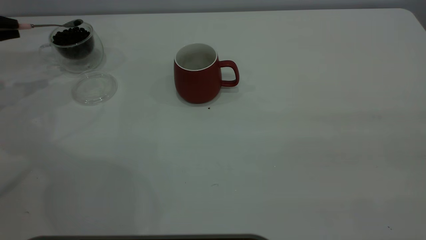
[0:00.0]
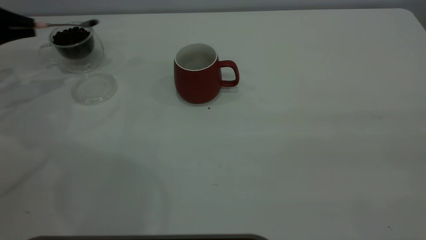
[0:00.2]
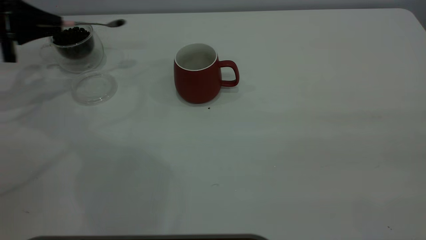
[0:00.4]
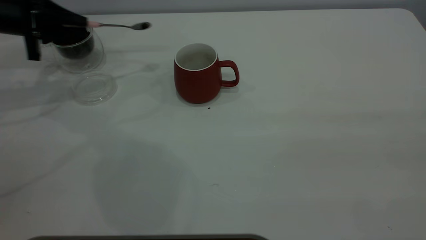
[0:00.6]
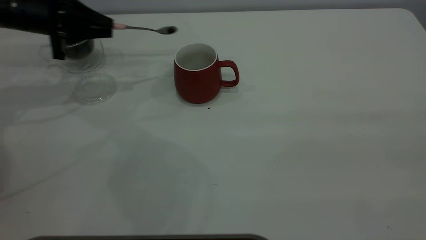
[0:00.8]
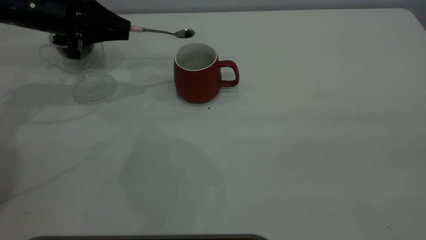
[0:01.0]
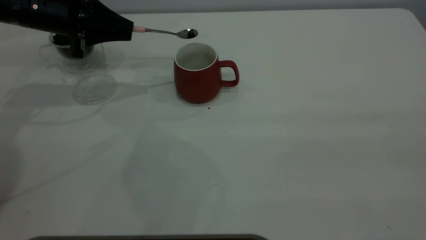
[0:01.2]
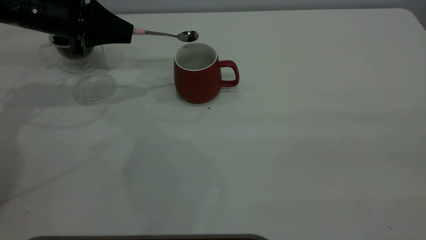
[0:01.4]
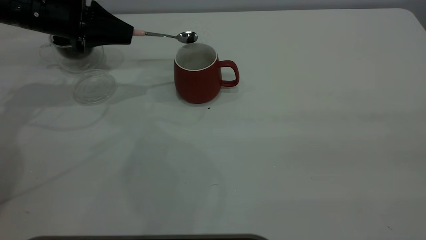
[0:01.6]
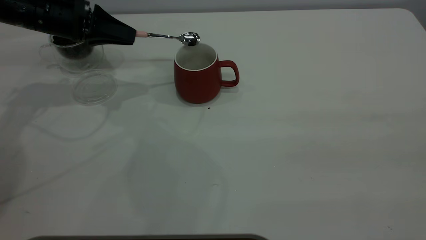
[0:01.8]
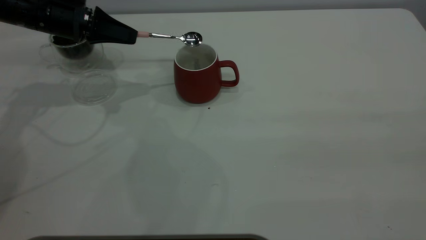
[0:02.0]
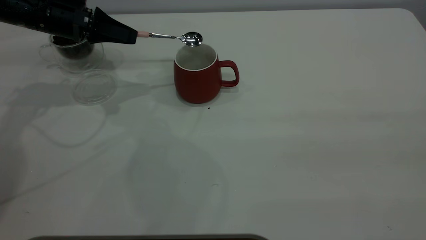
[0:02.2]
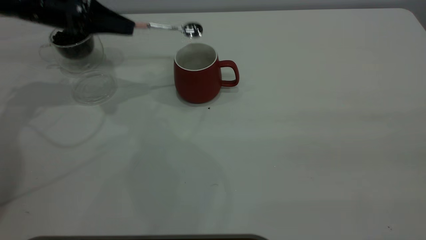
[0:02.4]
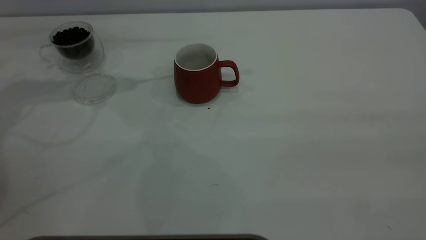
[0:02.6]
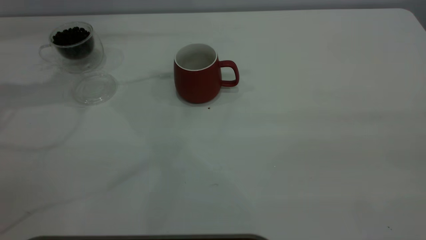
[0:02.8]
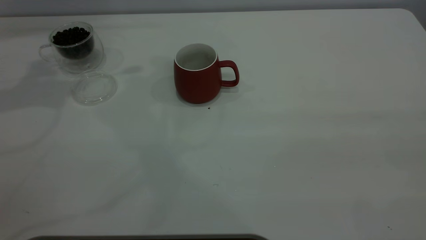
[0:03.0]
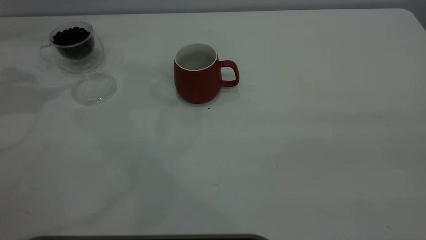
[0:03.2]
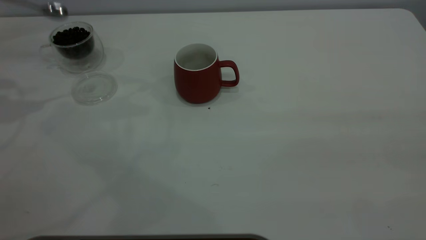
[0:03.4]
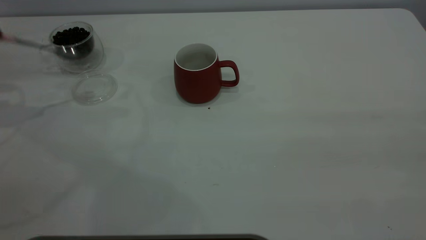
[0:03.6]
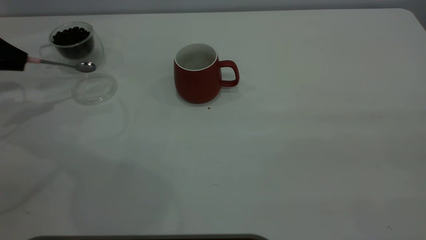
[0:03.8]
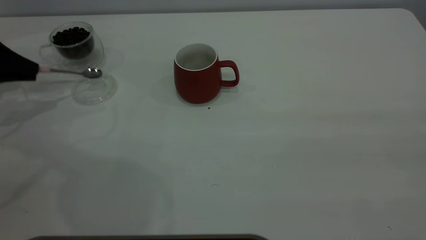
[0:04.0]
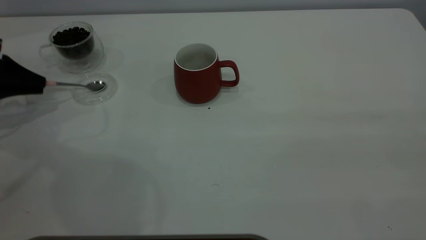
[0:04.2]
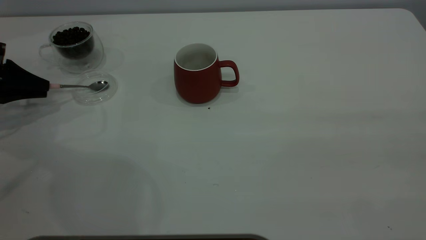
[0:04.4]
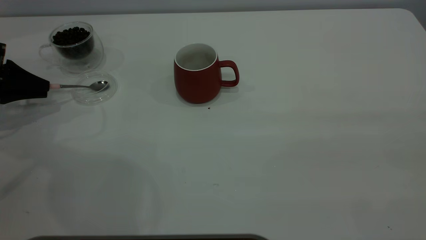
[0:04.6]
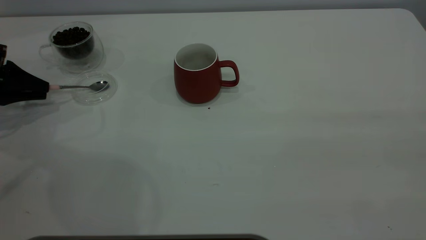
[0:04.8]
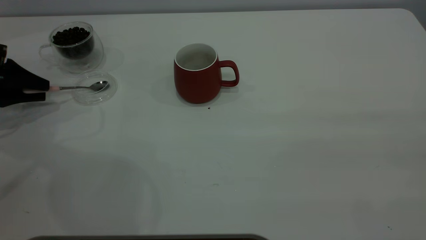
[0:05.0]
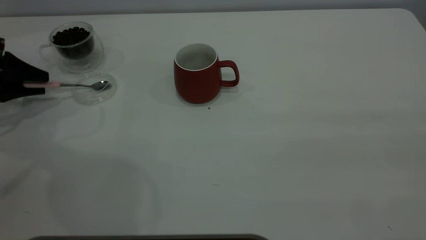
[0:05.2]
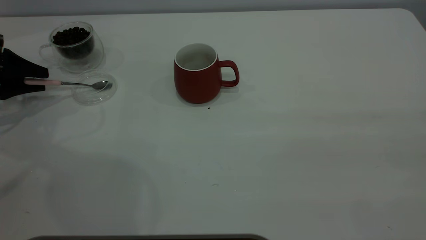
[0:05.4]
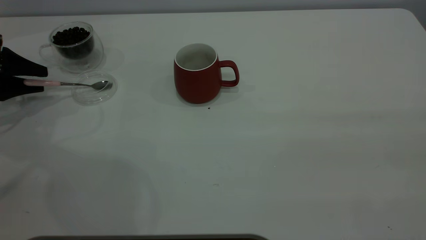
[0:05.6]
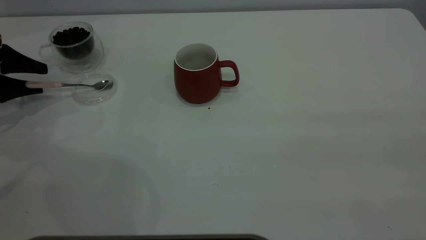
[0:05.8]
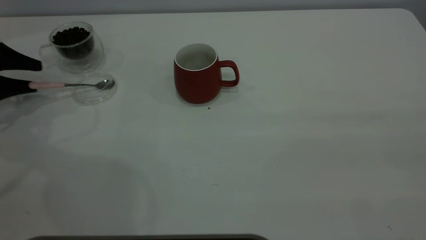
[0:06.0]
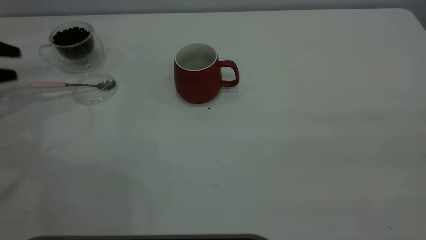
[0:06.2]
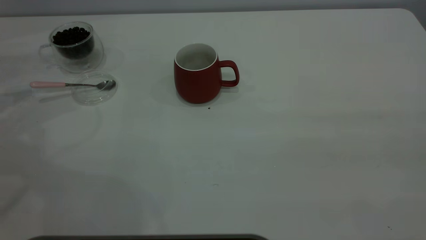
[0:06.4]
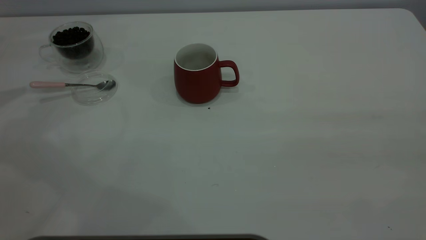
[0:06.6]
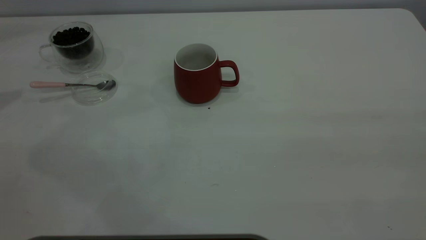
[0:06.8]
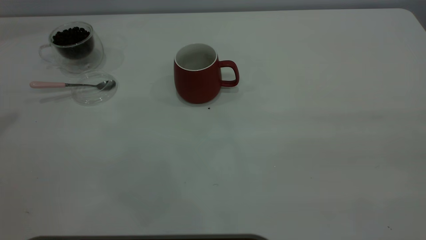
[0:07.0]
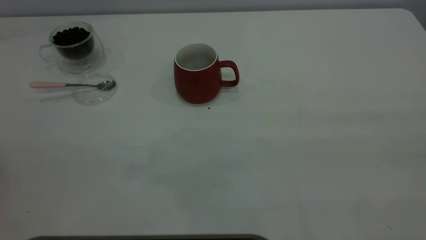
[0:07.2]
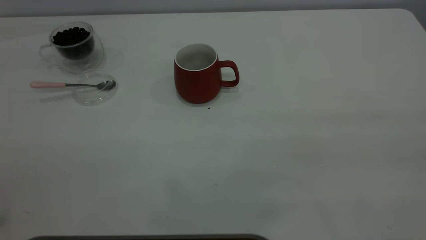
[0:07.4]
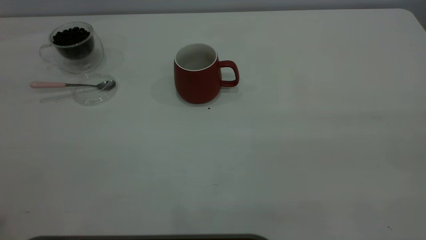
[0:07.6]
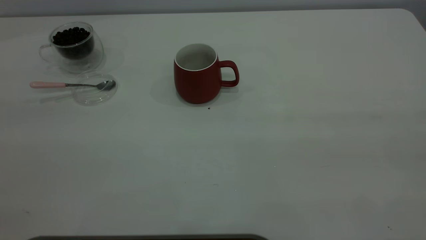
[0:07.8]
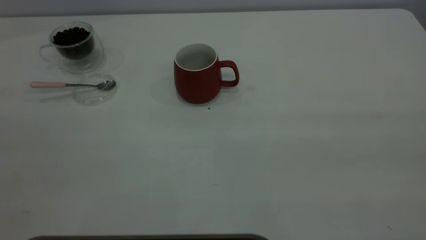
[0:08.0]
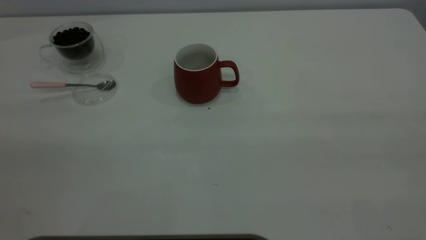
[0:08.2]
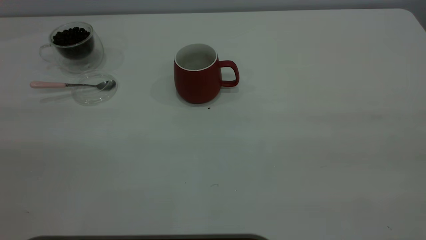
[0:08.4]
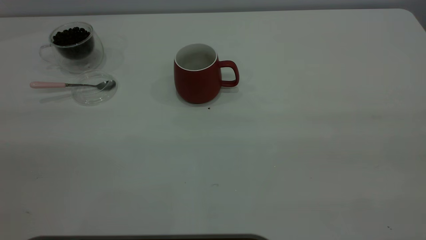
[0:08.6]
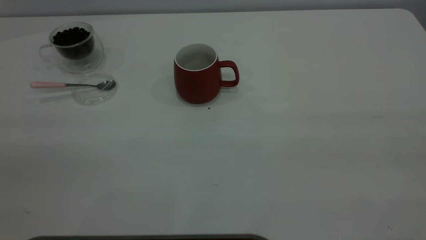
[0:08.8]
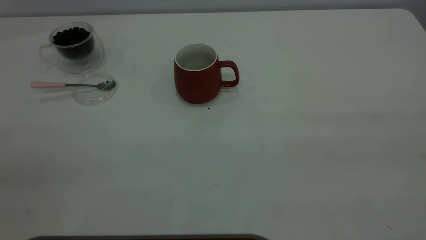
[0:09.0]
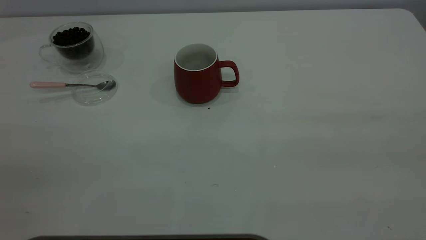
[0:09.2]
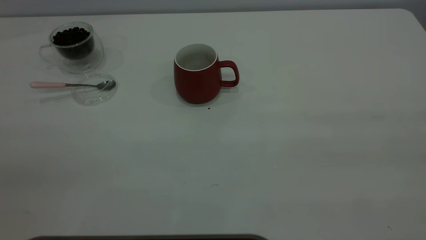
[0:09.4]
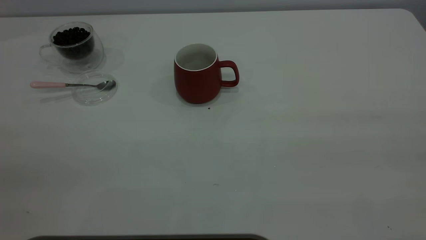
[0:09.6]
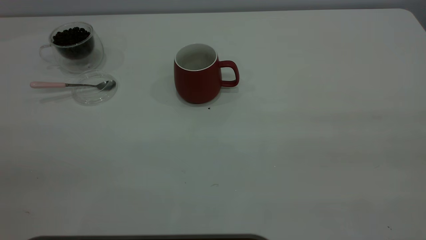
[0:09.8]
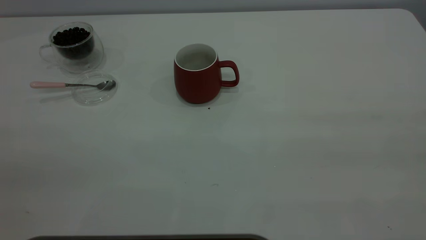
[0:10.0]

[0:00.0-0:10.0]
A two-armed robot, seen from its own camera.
Task of the whole recording: the right gripper place the red cup in the center of the table, the left gripper take the pink spoon from the cup lid and scoop out the coffee beans from the coffee cup and put them into the red cup, the left gripper put the spoon back into the cup lid.
Step, 0:00.0 to 0:02.2: Scoop a spoonful of beans into the cup.
Step, 0:02.6 to 0:06.2: Place the spoon back in its original place.
0:00.0 to 0:01.4: The left gripper travels to the right by approximately 20 cm.
0:01.4 to 0:02.8: The left gripper travels upward by some 15 cm.
0:02.8 to 0:04.2: The left gripper is displaced downward and to the left by approximately 25 cm.
0:04.2 to 0:05.8: The left gripper opens.
0:05.8 to 0:07.2: The left gripper shifts roughly 40 cm upward.
